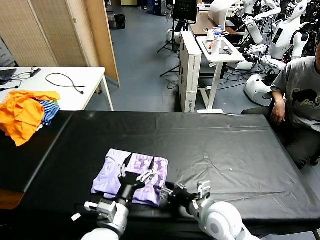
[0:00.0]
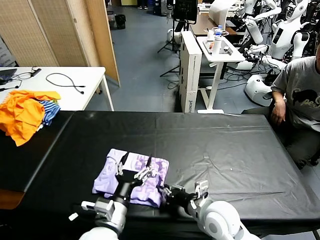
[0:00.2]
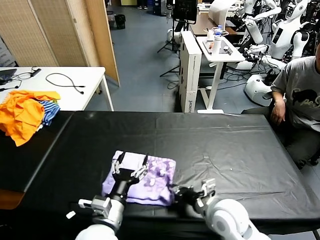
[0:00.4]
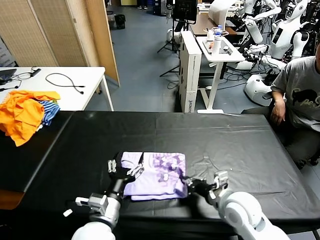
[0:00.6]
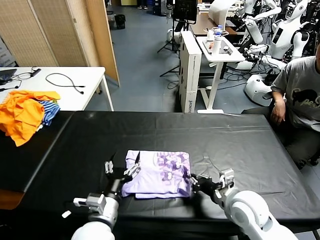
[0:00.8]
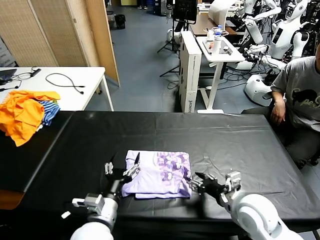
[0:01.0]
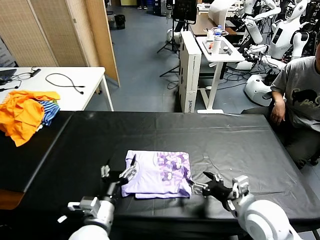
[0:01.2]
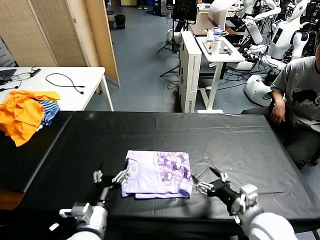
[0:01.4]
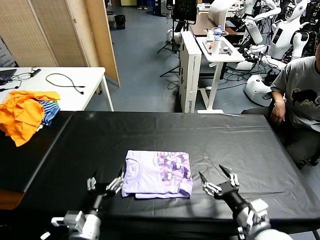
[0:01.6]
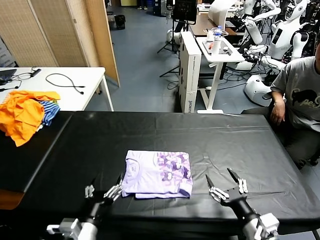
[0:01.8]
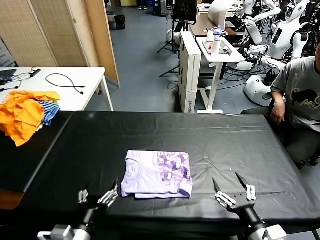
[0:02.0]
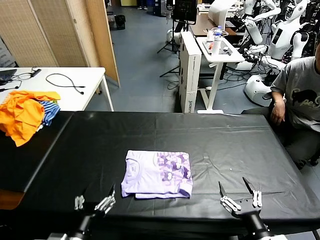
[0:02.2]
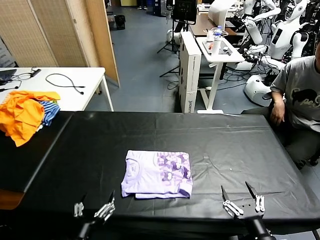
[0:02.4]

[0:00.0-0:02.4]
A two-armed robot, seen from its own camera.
Task of the whole recording: fold and organize the clothes.
Step, 0:00.0 to 0:01.0: Drag the clothes to the center of the table.
0:00.0 to 0:01.2: The right gripper moves to the right and upward, some 10 cm, and closes, then reopens.
0:01.2 to 0:02.4: The two grippers go roughly 15 cm backward.

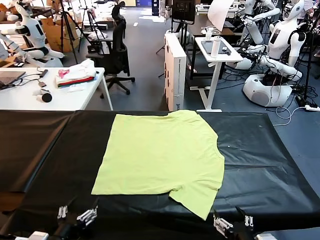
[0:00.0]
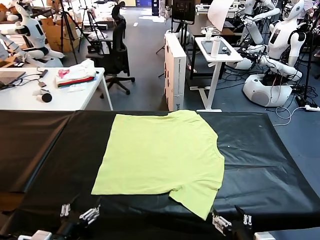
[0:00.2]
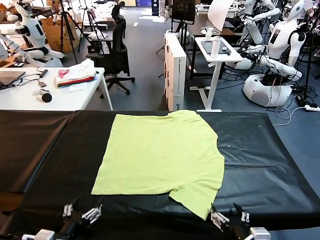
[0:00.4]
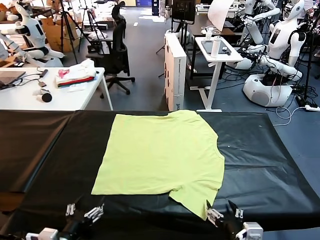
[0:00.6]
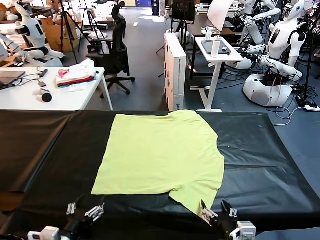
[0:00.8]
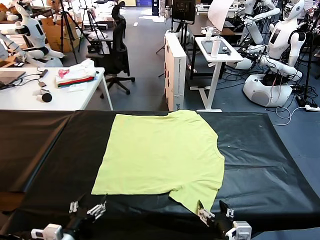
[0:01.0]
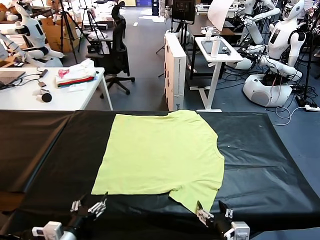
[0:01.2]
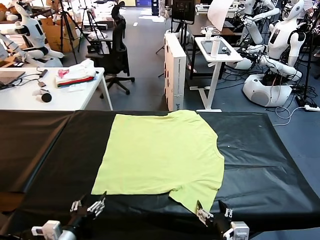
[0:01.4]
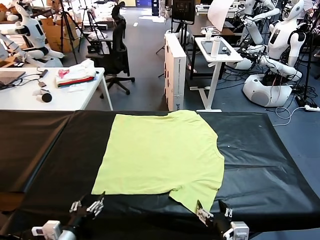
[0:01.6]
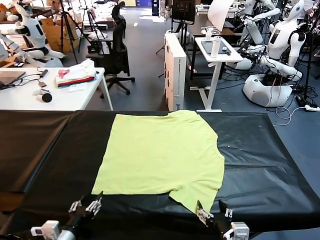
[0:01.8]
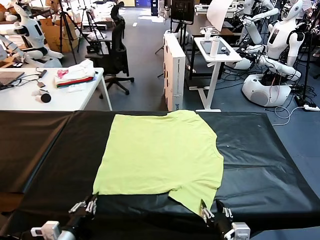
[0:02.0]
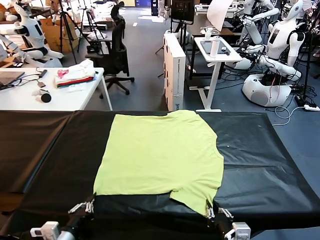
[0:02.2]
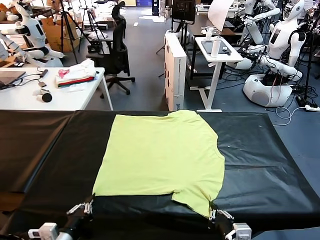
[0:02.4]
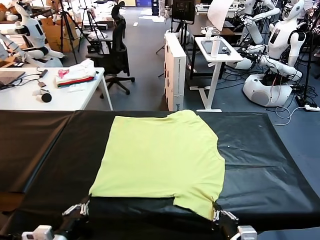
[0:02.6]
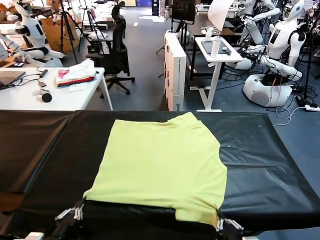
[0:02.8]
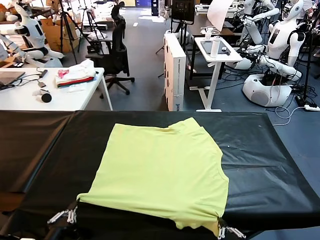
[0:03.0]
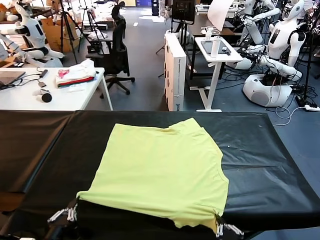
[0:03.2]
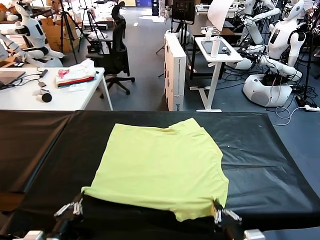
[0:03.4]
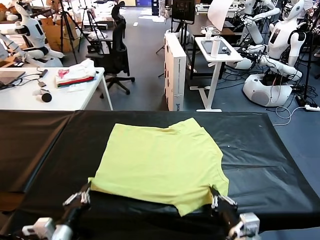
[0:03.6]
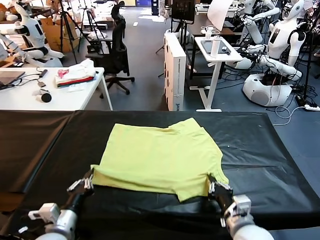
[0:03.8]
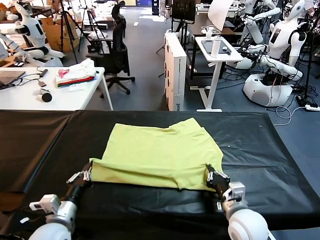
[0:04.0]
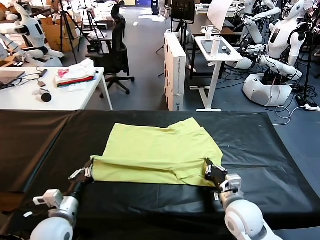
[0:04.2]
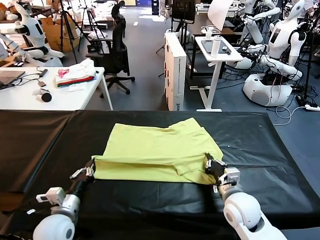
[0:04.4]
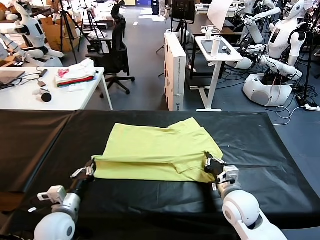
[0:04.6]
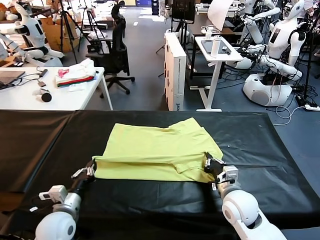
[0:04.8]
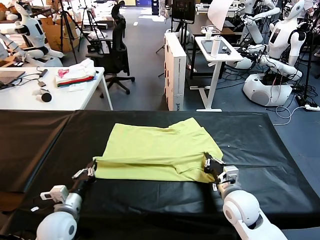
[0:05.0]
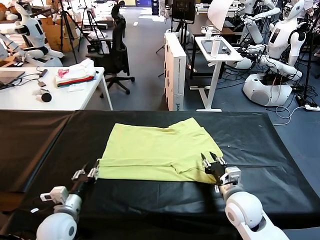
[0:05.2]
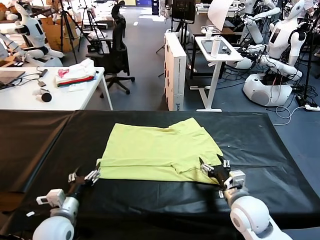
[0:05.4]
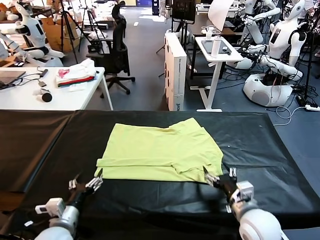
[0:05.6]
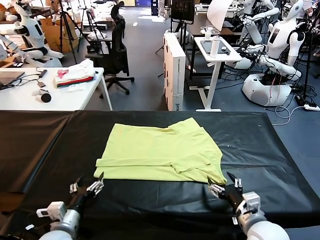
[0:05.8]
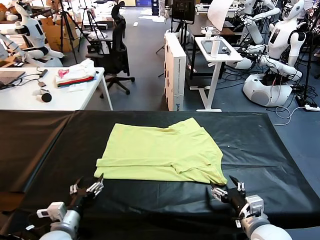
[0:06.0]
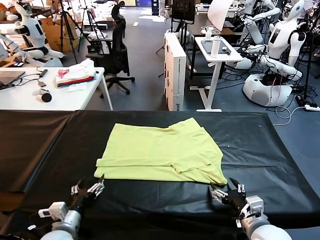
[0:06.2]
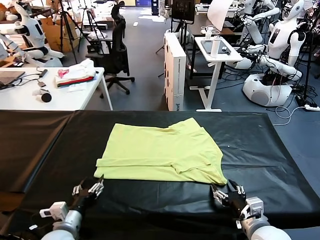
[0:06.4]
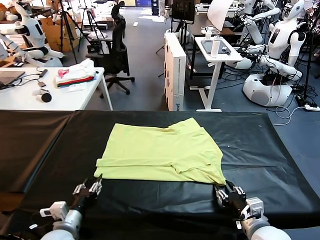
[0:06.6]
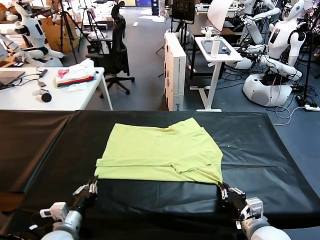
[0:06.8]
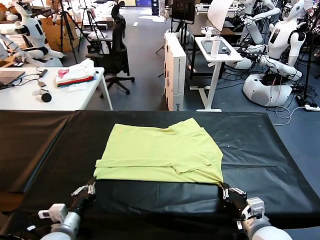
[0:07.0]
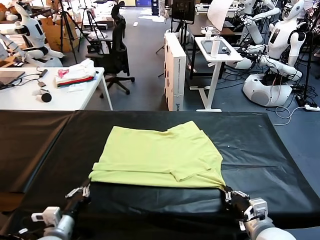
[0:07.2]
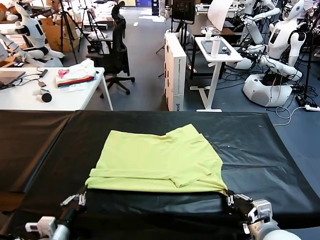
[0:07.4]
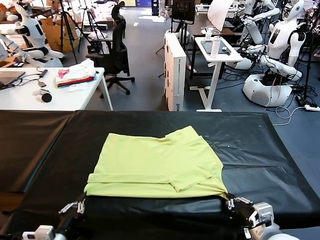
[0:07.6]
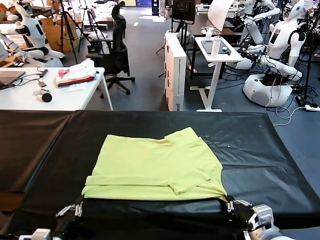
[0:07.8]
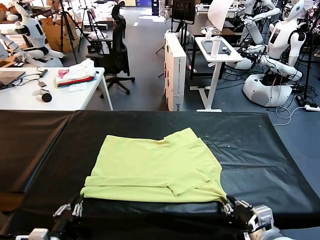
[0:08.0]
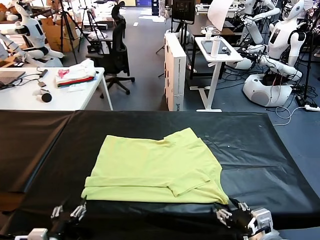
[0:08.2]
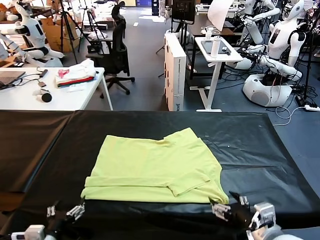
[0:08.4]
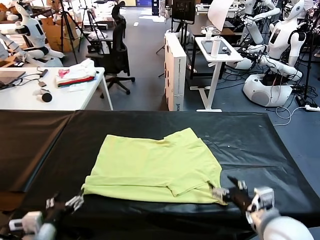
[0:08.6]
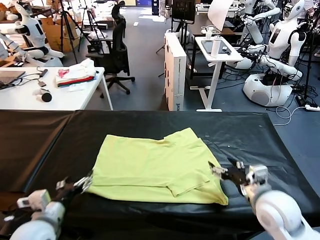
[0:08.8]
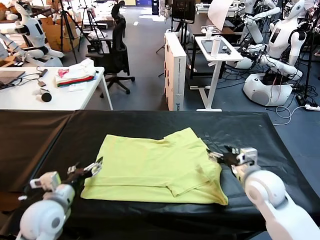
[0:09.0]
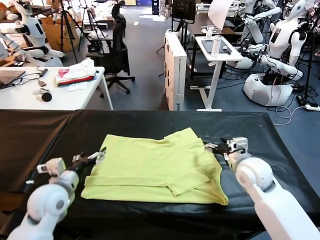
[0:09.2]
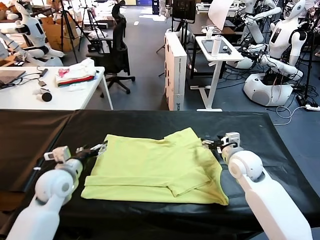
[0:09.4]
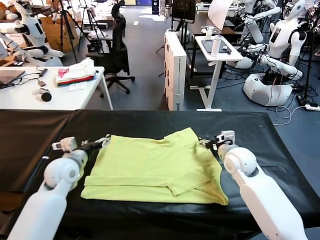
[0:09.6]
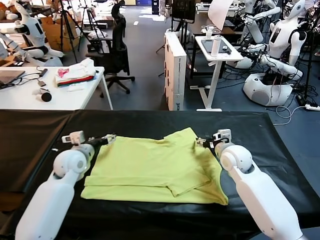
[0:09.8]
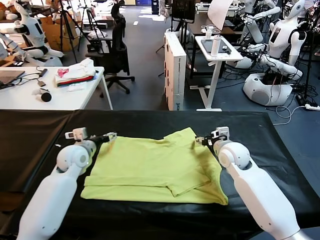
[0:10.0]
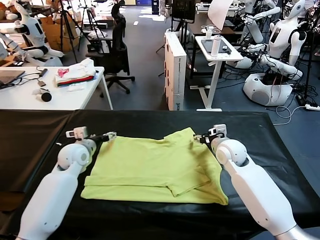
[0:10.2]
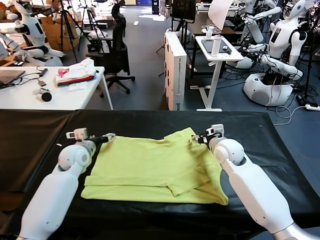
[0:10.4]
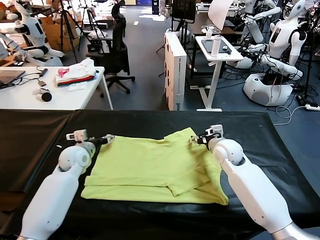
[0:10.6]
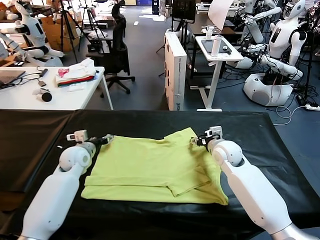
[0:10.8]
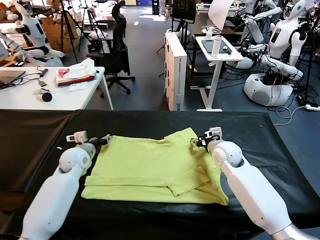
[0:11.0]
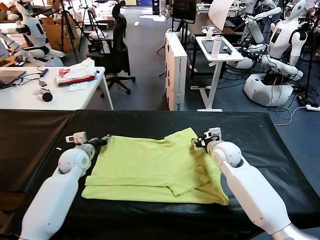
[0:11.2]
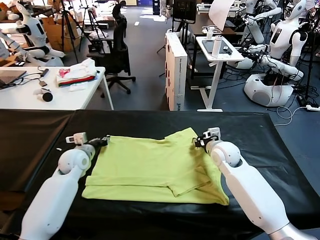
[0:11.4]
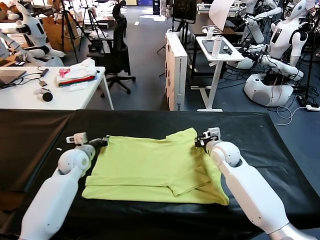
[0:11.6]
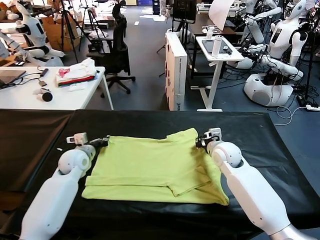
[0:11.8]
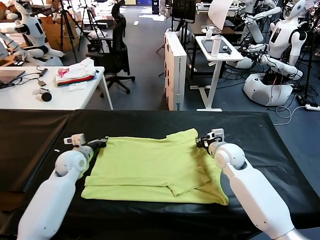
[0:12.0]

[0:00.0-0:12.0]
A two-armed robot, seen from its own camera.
Task of the whole recording: fold and organize the clothes.
Step, 0:00.0 to 0:02.4: use both grippers simultaneously to clamp the lower edge of the clothing fabric.
Step, 0:02.6 to 0:05.2: use both grippers to drag the lower edge of the fabric forward and fold it over the upper edge.
Step, 0:05.6 to 0:08.2: Drag the clothes downward with both gripper.
Step, 0:08.4 to 0:12.0: use both grippers simultaneously to clamp the upper edge of the clothing fabric.
0:01.6 to 0:03.0: The right gripper shifts by approximately 5 cm, and closes. The left gripper moves about 5 cm, and closes.
0:03.0 to 0:04.4: The two grippers go about 15 cm forward.
0:04.4 to 0:06.0: The left gripper opens its fingers. Meanwhile the right gripper travels backward and to the right by roughly 10 cm, and opens.
0:06.0 to 0:07.6: The right gripper travels upward by roughly 5 cm, and closes its fingers; the left gripper is displaced backward by some 5 cm, and closes up.
0:07.6 to 0:09.0: The left gripper is displaced forward and upward by about 20 cm, and opens its fingers. Meanwhile the right gripper moves forward, some 20 cm, and opens its fingers.
0:09.0 to 0:10.4: The right gripper is displaced forward by some 10 cm; the left gripper travels forward by some 15 cm.
0:10.4 to 0:12.0: The left gripper closes; the right gripper closes up.

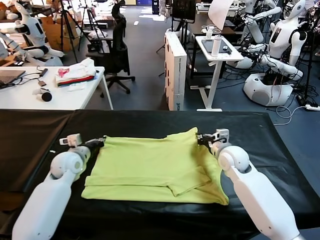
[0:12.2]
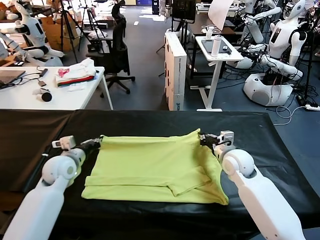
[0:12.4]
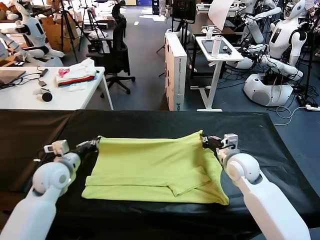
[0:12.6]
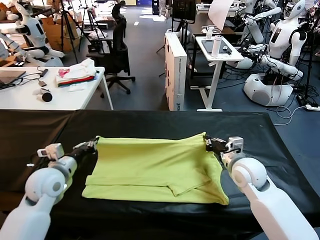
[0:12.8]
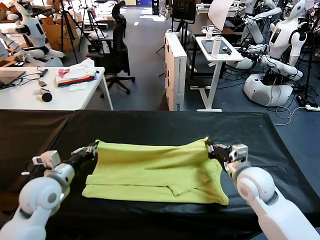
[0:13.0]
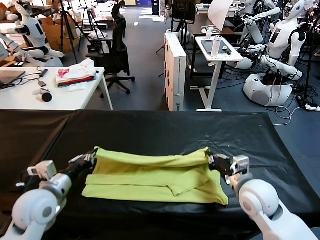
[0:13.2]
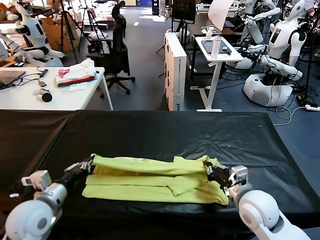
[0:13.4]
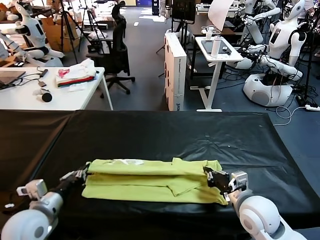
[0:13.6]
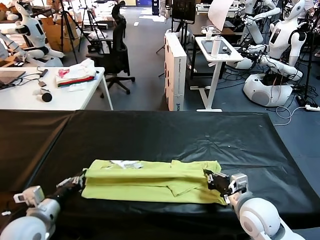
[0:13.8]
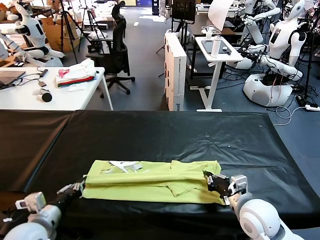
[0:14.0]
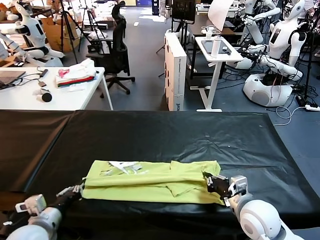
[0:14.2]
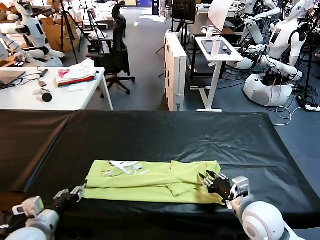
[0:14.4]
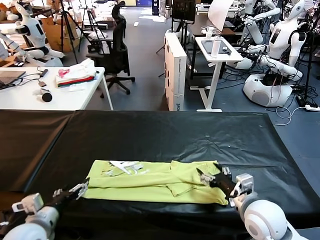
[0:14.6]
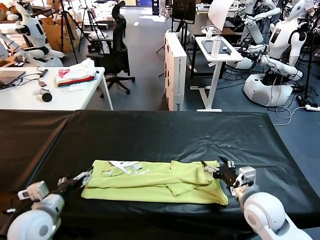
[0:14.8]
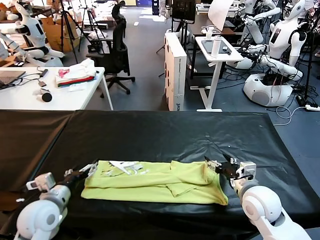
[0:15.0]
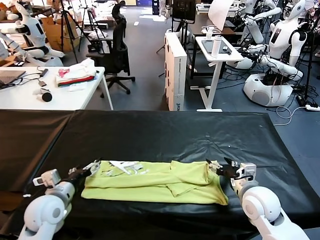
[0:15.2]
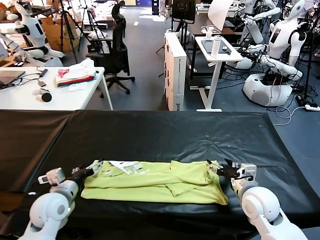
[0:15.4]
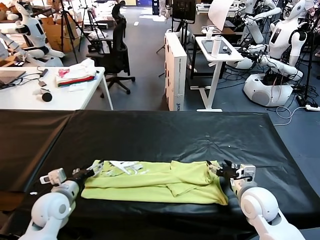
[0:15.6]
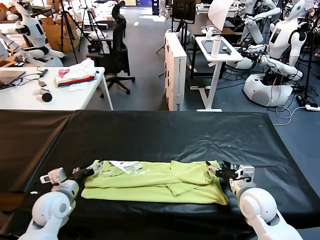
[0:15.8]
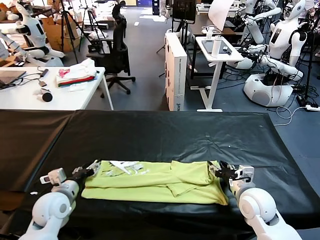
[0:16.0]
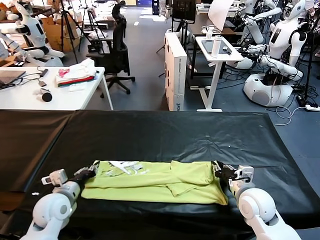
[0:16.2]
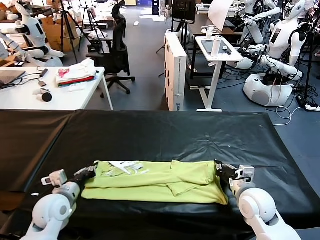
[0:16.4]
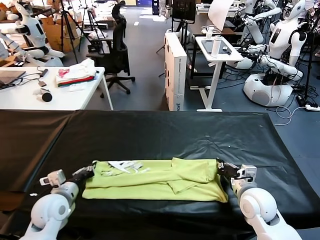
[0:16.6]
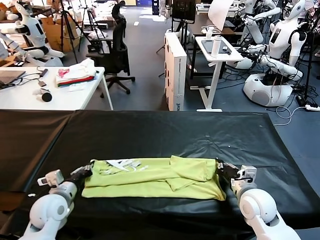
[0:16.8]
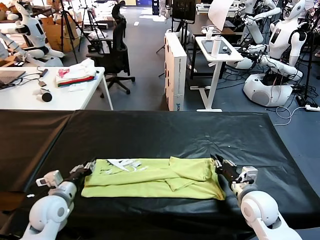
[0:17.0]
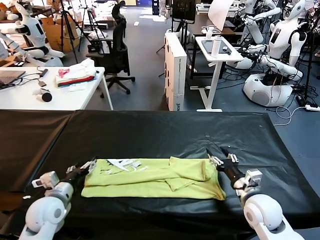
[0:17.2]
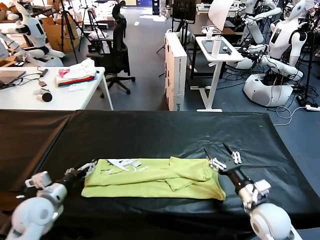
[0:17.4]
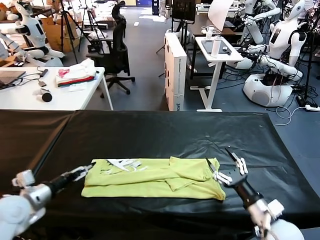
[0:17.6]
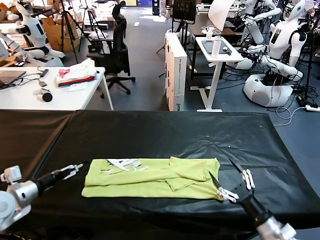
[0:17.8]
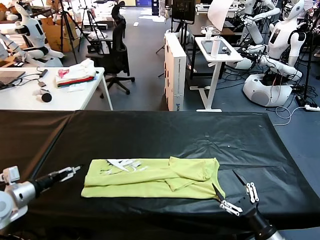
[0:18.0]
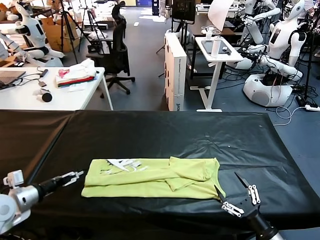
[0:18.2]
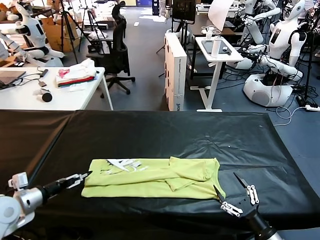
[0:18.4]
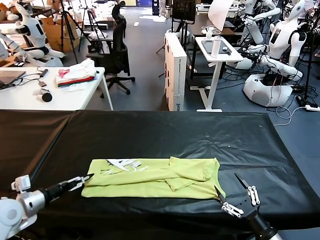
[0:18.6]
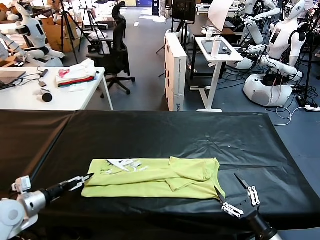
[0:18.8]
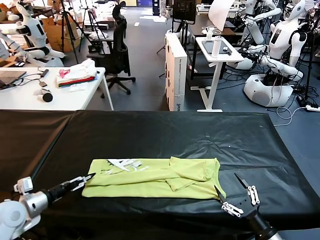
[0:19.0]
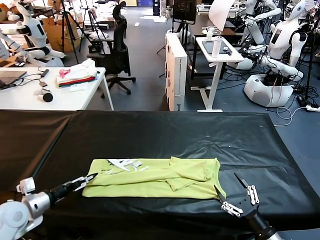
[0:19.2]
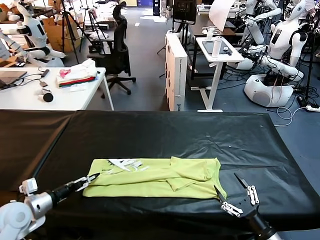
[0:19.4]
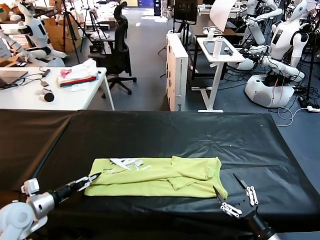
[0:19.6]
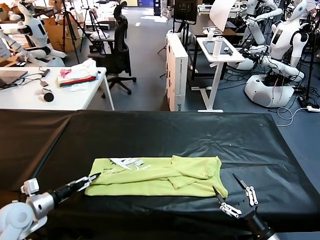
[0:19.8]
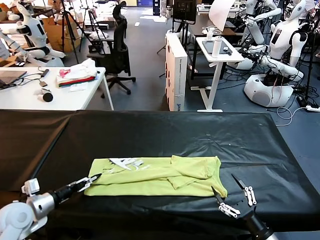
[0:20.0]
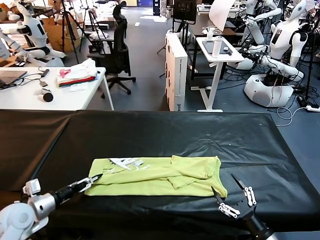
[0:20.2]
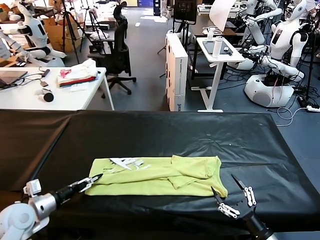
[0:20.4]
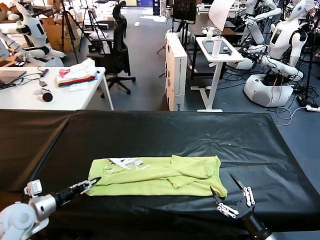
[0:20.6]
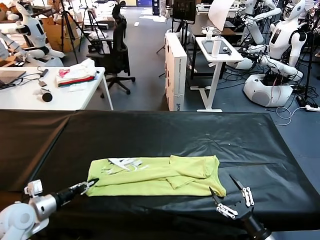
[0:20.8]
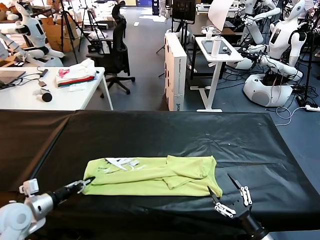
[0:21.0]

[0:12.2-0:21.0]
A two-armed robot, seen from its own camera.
Task of the whole recording: fold and organize the clothes.
Step, 0:12.2 to 0:14.4: use both grippers to drag the upper edge of the fabric backward and fold it over the lower edge.
Step, 0:14.8 to 0:21.0: use the left gripper to clamp the left edge of the fabric.
0:12.2 to 0:13.6: The two grippers go approximately 20 cm backward.
0:13.6 to 0:15.2: The right gripper opens its fingers. The left gripper is displaced forward by roughly 5 cm, and opens up.
0:15.2 to 0:16.6: The left gripper closes, while the right gripper closes up.
0:16.6 to 0:18.0: The right gripper moves backward, approximately 15 cm, and opens up; the left gripper heads to the left and upward, covering some 15 cm, and opens.
0:18.0 to 0:19.6: The left gripper is displaced downward by approximately 5 cm.
0:19.6 to 0:21.0: The left gripper closes up.
